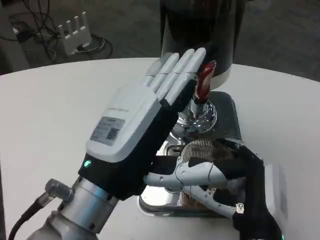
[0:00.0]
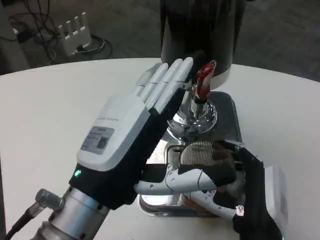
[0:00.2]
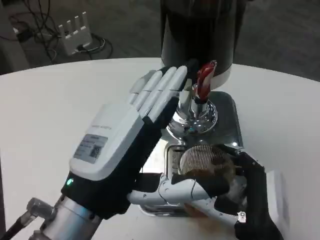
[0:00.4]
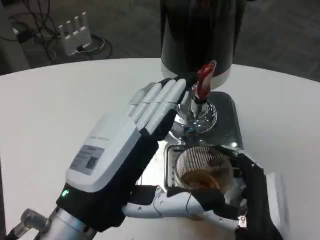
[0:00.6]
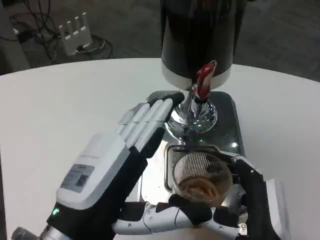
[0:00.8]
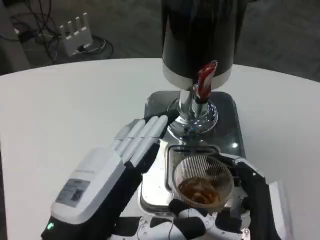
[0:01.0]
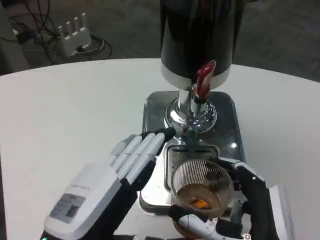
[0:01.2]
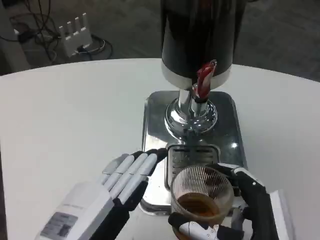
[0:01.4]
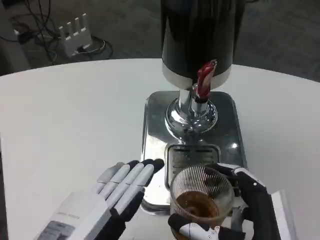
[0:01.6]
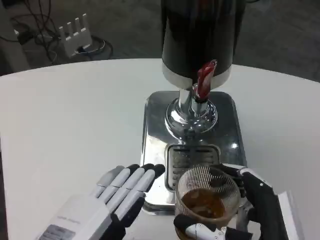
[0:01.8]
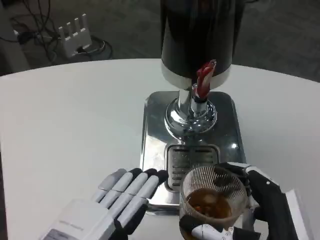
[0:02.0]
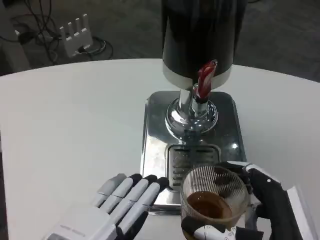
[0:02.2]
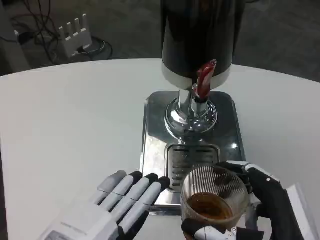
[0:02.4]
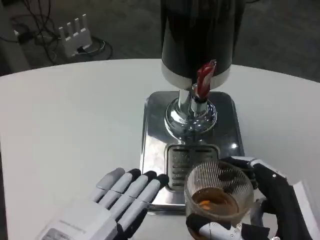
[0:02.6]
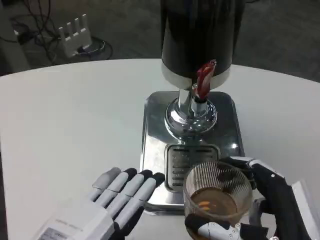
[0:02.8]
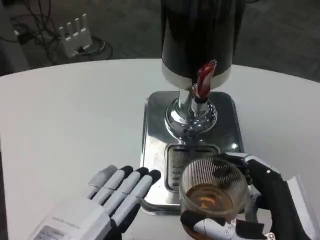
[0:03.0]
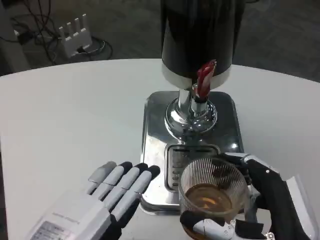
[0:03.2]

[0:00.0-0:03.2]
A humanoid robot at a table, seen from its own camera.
Task of the whole recording: Grasp the cup under the faucet to collect the drink, then remove the cup.
0:00.0 to 0:01.6: The left hand heads backward, downward and to the left, covering approximately 10 cm, while the right hand shifts roughly 5 cm backward.
0:01.6 to 0:03.2: There are only small adjustments of the hands.

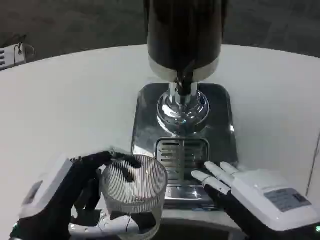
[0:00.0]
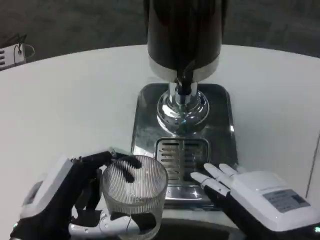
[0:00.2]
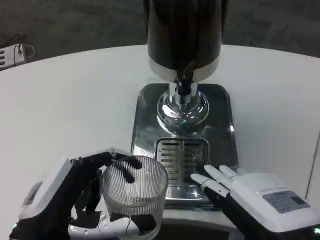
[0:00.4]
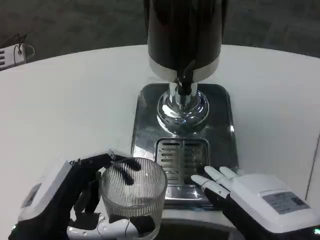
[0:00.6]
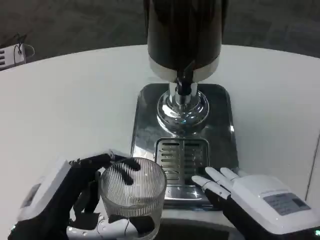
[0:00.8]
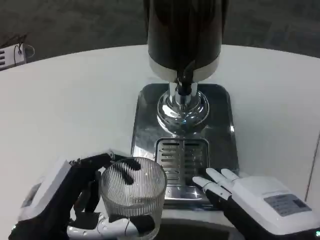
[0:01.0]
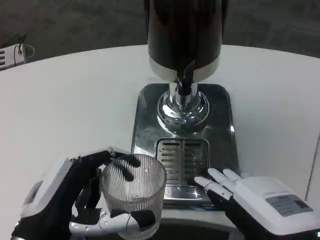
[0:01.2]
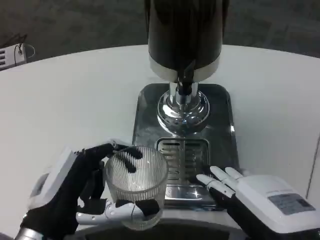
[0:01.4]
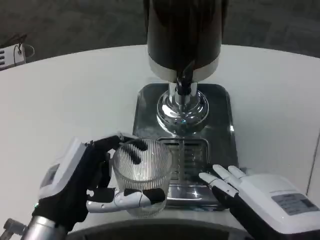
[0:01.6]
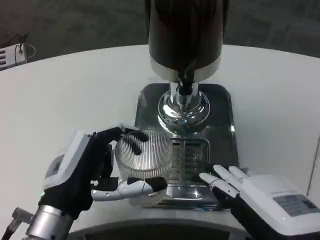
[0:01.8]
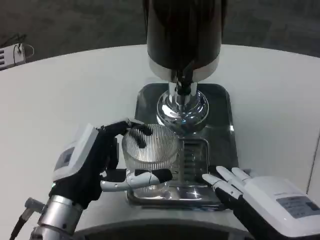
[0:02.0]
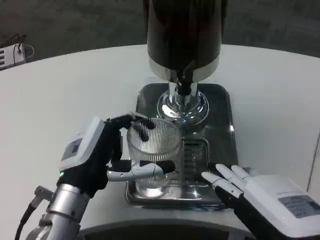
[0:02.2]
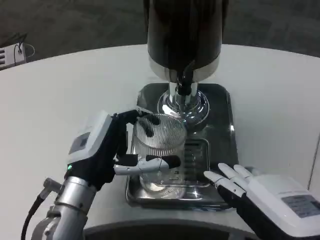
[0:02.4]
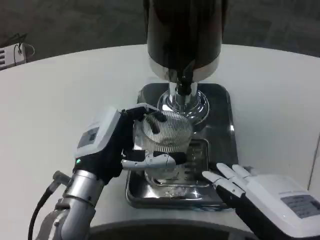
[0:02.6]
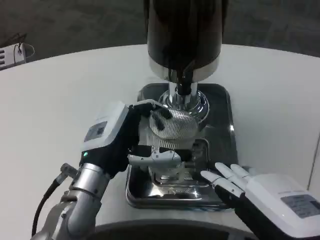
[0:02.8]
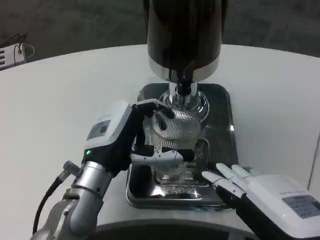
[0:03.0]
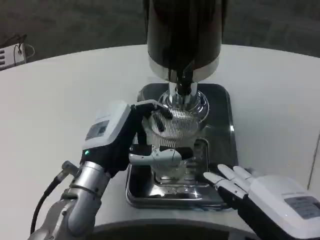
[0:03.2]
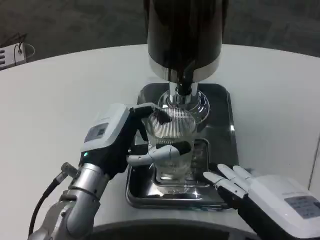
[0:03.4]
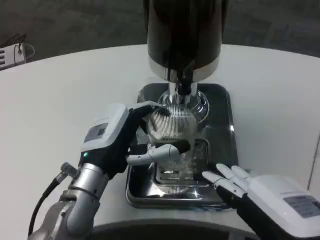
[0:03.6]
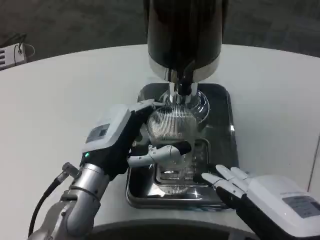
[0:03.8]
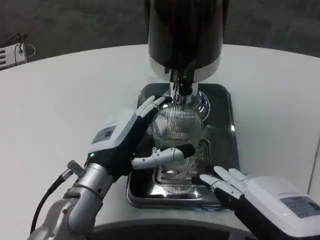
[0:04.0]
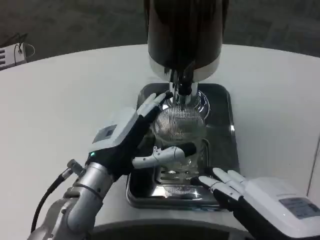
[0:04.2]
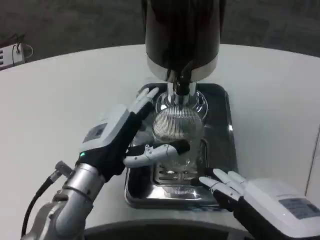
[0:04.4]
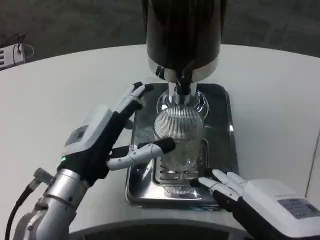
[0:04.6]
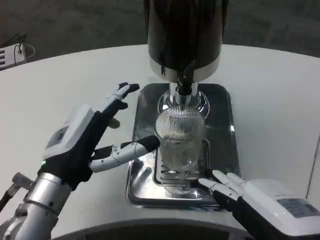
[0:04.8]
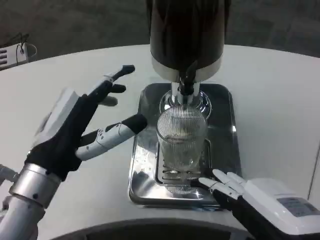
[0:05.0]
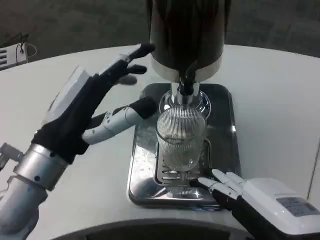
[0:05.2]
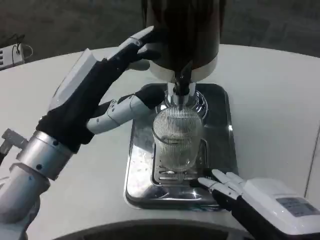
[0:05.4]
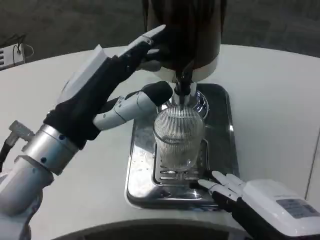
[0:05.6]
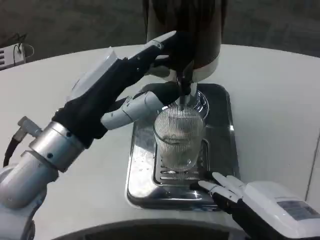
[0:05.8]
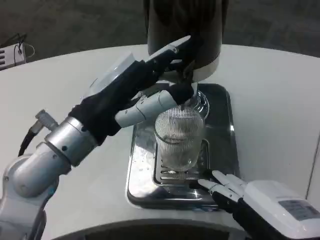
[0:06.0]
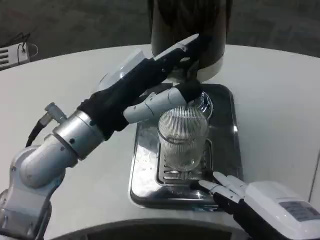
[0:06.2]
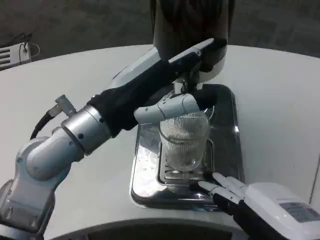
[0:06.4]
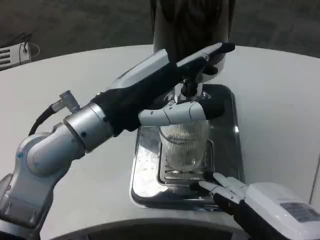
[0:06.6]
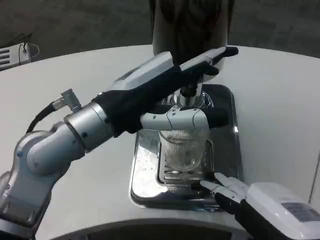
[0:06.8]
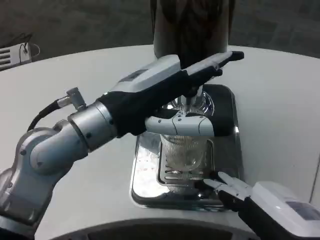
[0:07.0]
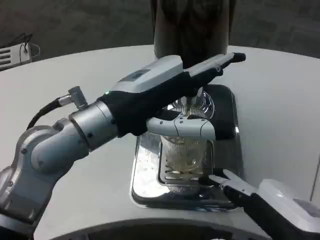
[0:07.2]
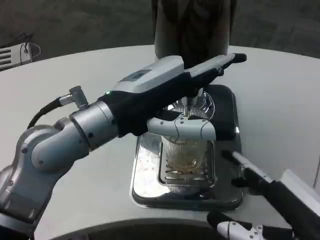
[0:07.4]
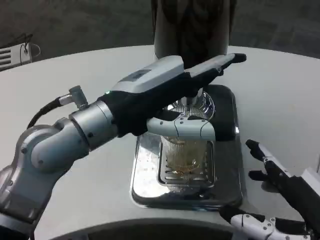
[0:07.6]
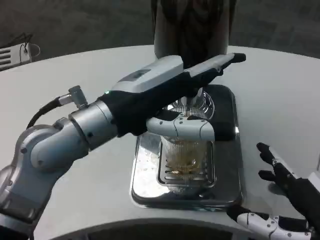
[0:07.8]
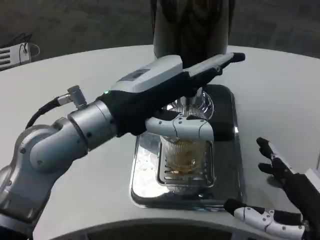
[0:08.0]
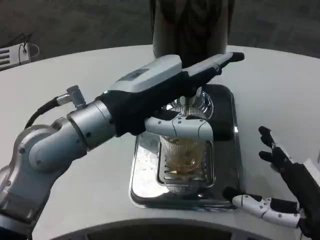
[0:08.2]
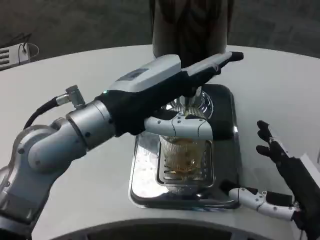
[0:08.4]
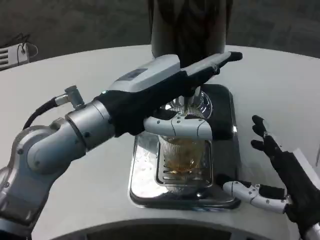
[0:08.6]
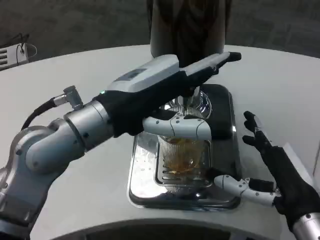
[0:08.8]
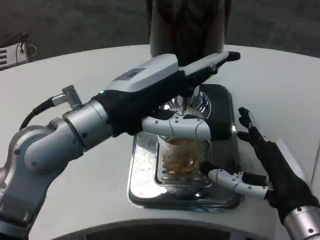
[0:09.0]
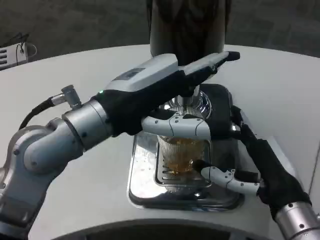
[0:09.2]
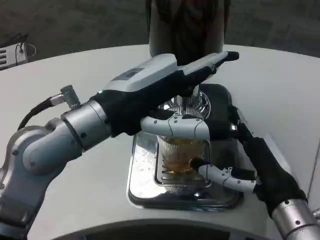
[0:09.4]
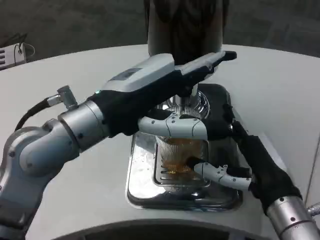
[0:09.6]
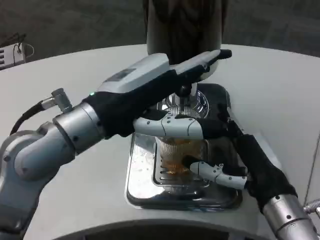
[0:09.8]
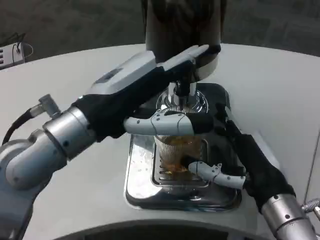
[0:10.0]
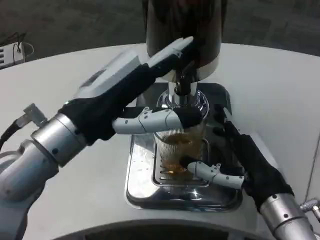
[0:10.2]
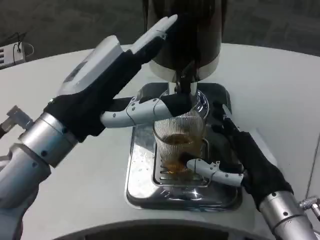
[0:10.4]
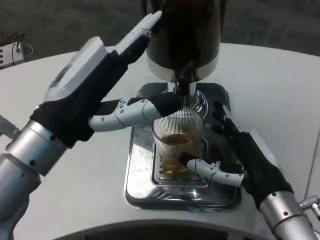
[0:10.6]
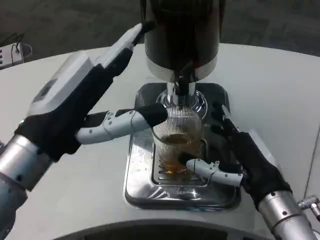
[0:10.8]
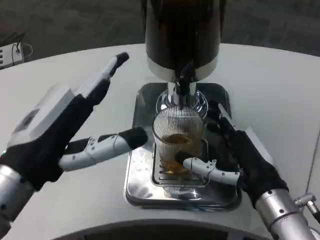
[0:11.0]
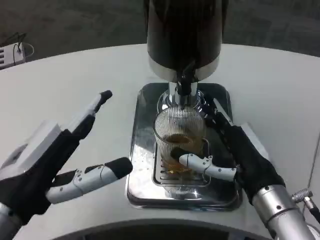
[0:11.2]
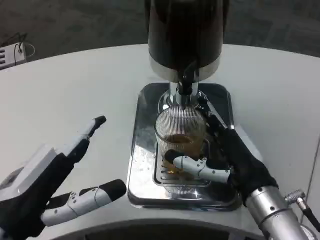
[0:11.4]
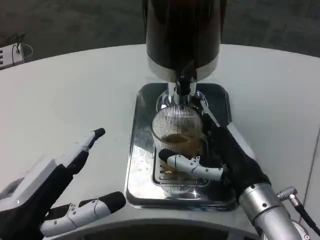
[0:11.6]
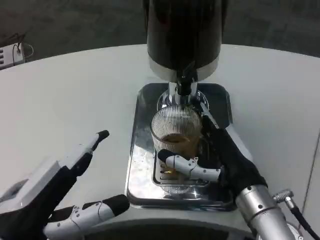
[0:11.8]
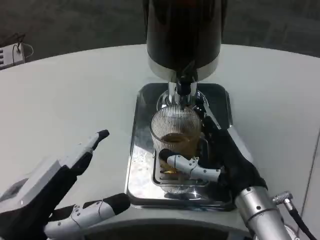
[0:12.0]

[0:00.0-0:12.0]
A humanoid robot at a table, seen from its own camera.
Task of the whole recording: Grasp the cup under the faucet to collect the drink, then remove the cup.
0:00.0 to 0:01.6: There are only small adjustments of the hands.
0:01.6 to 0:03.0: The left hand moves forward, about 10 cm.
0:03.0 to 0:04.4: The hands stay close to where they were, moving slightly.
0:04.4 to 0:06.0: The left hand goes some 10 cm upward.
0:07.6 to 0:09.0: The right hand is displaced forward by some 10 cm.
0:10.4 to 0:12.0: The left hand goes approximately 10 cm downward and backward.

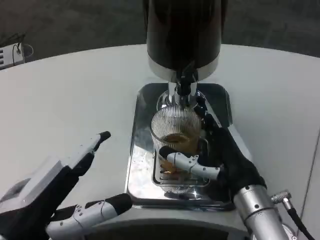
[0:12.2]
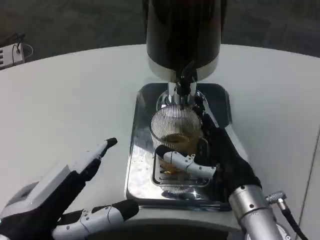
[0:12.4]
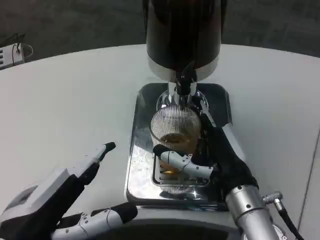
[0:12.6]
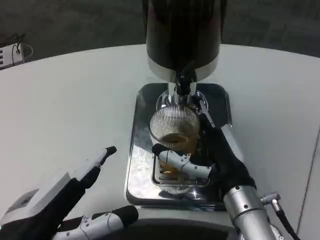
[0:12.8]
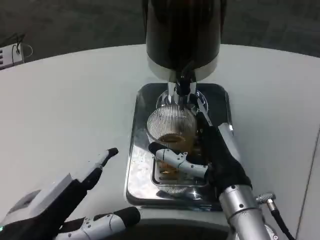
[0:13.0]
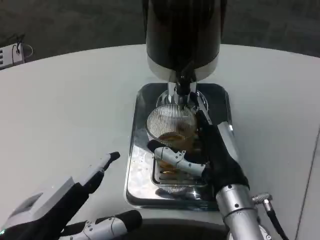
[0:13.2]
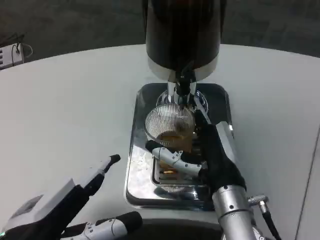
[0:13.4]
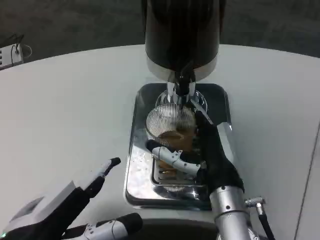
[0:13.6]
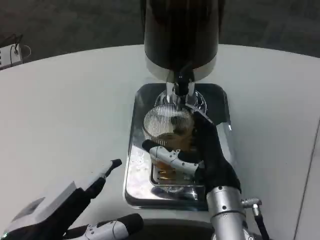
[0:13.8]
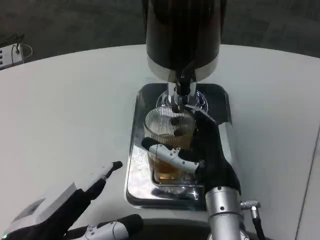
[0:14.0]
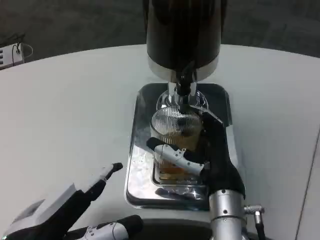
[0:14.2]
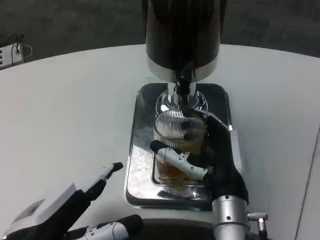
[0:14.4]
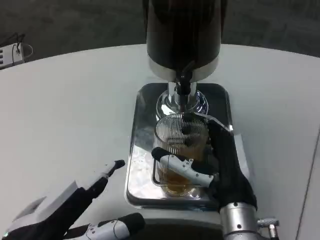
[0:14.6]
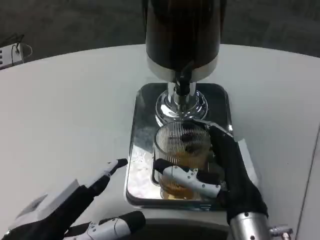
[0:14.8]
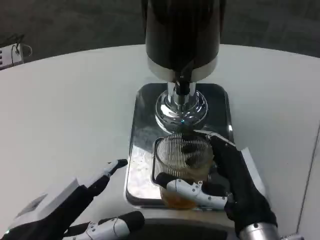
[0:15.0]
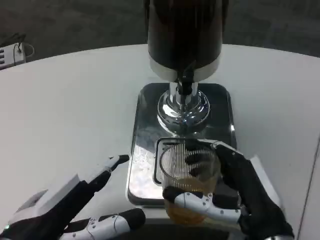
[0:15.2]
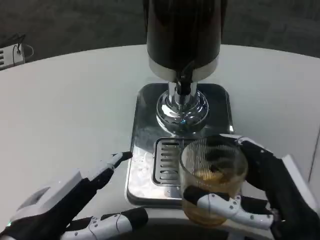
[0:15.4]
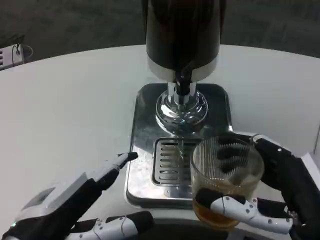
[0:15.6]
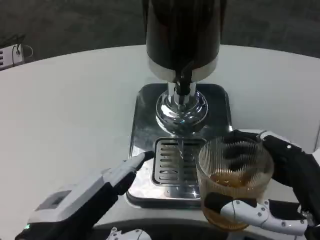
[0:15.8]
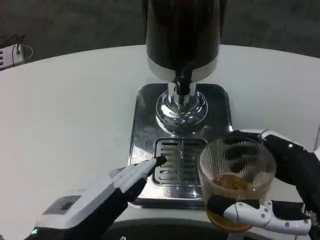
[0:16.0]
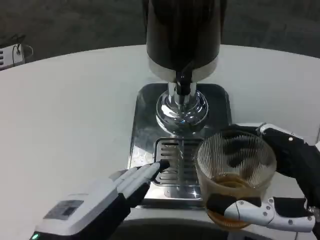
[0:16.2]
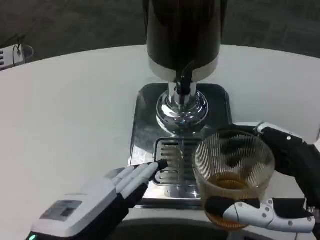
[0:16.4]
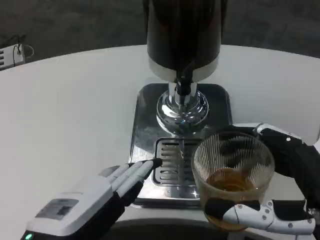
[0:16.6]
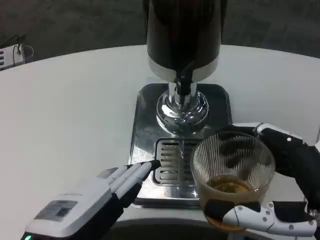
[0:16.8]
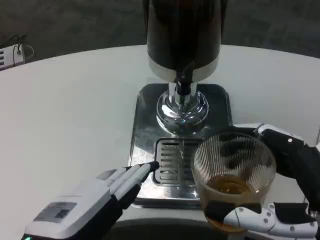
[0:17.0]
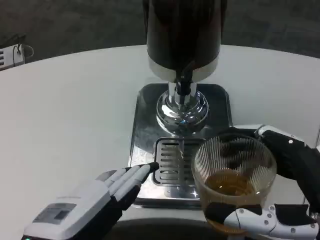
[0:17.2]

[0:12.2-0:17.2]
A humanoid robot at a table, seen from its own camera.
Task of the whole recording: Grasp the cup under the faucet to collect the drink, then remove the cup.
0:12.2 to 0:13.8: The right hand goes approximately 5 cm to the left.
0:13.8 to 0:15.6: The right hand moves backward and to the right, some 15 cm.

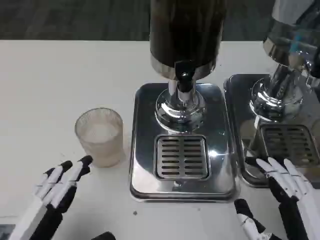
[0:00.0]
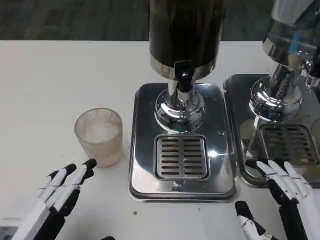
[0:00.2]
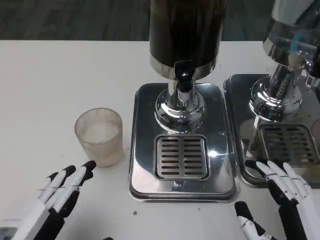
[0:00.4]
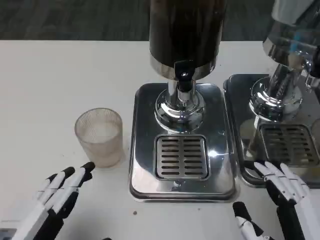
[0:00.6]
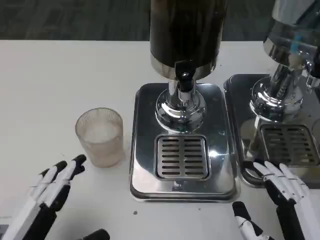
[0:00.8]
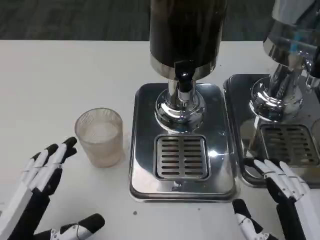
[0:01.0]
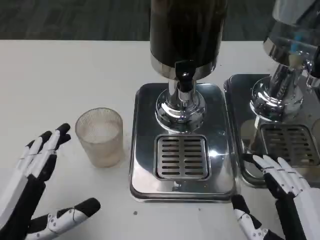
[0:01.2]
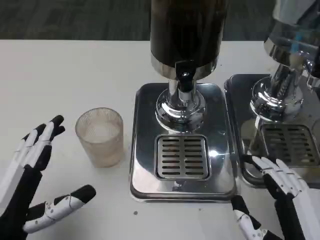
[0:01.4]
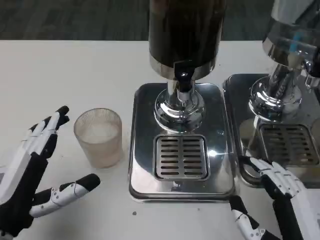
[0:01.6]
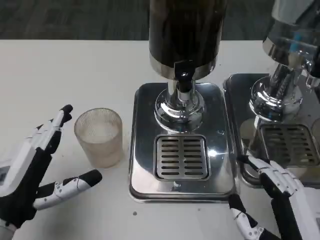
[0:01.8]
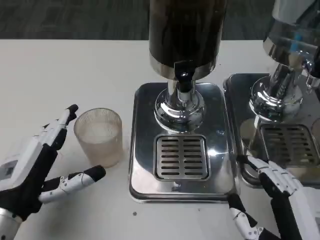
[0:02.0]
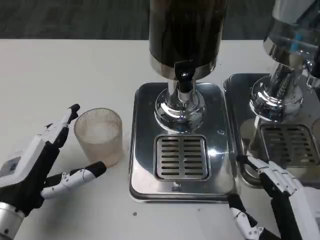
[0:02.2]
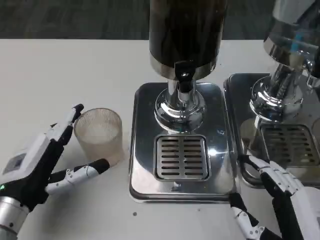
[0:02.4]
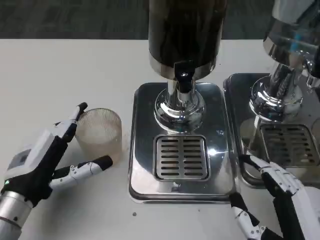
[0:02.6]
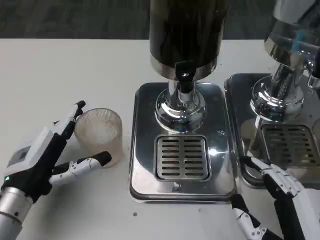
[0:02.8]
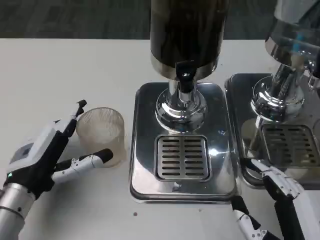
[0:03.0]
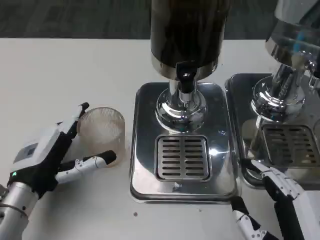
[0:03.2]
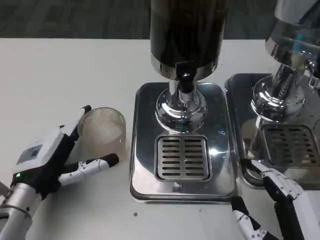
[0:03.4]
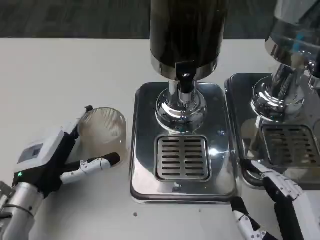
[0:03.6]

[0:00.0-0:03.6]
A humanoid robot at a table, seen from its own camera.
Task of the whole recording: Grasp the cup under the faucet to collect the drink, then remove the cup.
0:00.0 to 0:01.8: The left hand travels forward by approximately 10 cm.
0:01.8 to 0:03.6: The left hand goes roughly 5 cm forward.
